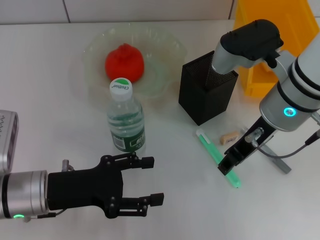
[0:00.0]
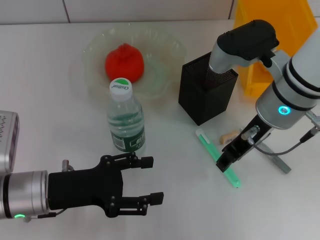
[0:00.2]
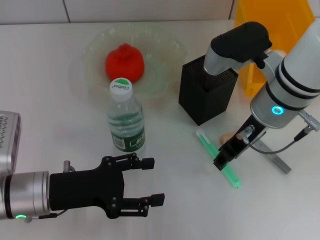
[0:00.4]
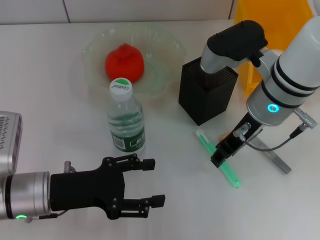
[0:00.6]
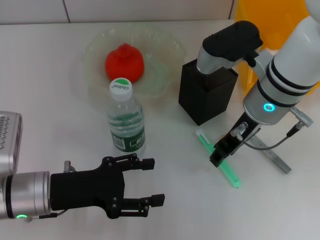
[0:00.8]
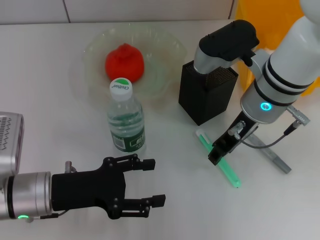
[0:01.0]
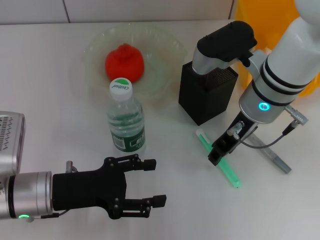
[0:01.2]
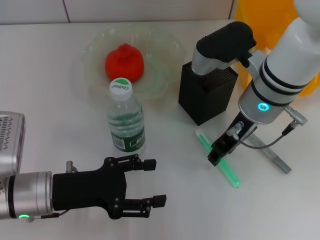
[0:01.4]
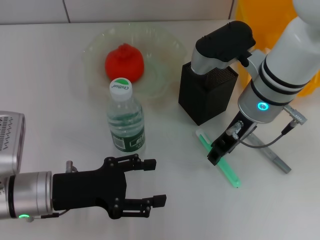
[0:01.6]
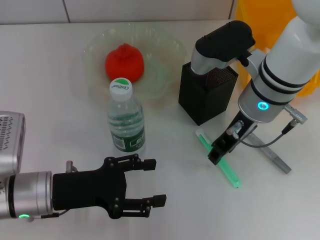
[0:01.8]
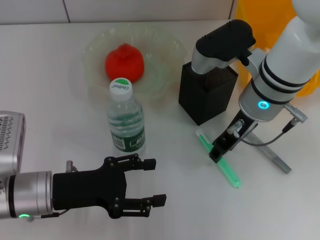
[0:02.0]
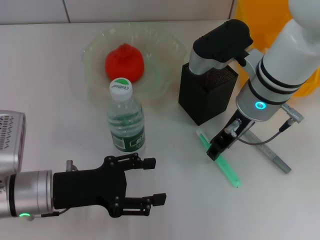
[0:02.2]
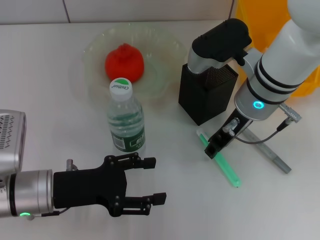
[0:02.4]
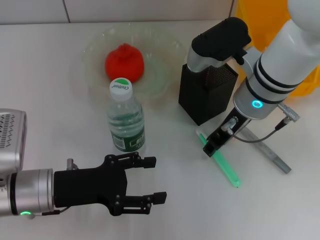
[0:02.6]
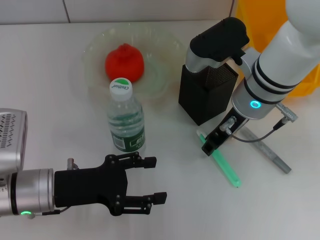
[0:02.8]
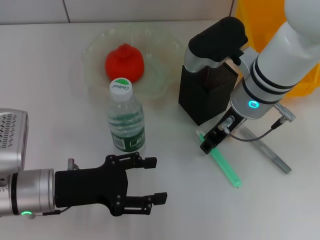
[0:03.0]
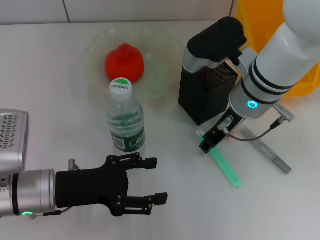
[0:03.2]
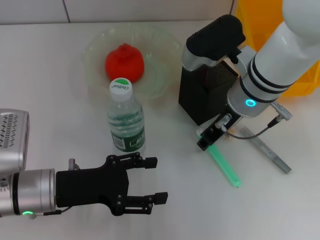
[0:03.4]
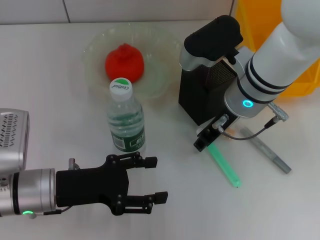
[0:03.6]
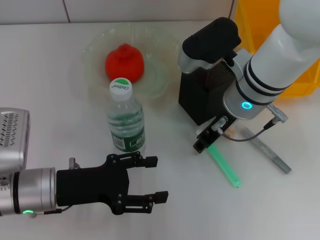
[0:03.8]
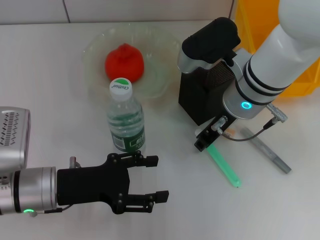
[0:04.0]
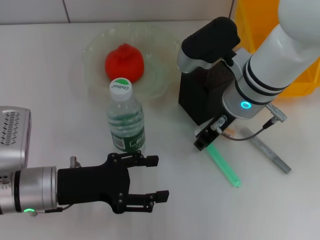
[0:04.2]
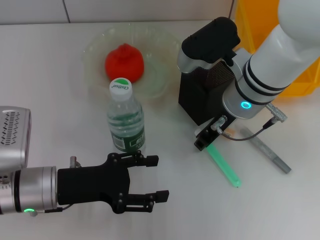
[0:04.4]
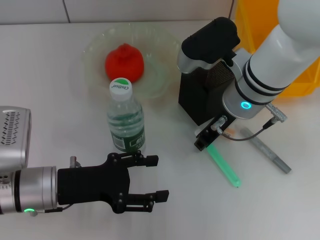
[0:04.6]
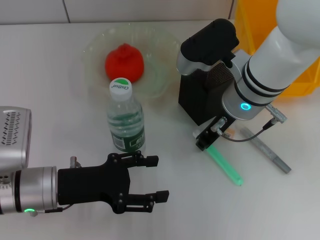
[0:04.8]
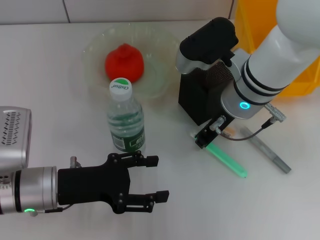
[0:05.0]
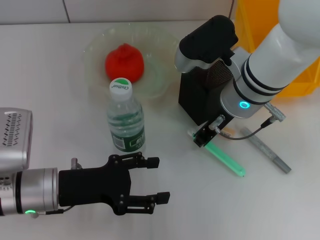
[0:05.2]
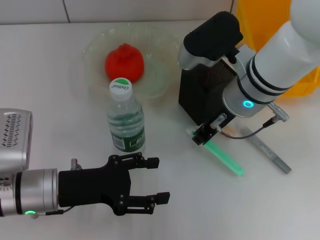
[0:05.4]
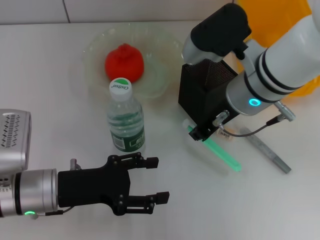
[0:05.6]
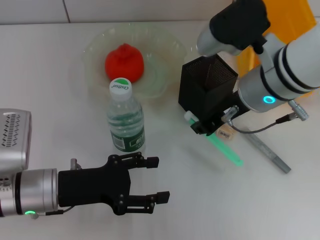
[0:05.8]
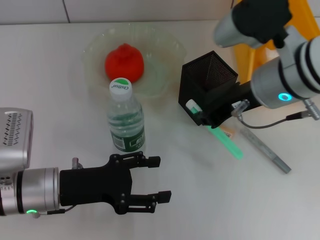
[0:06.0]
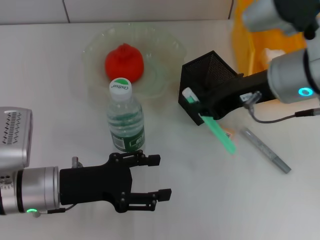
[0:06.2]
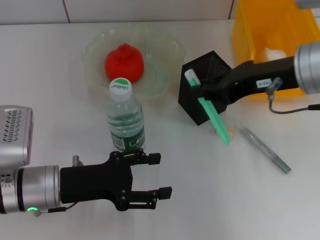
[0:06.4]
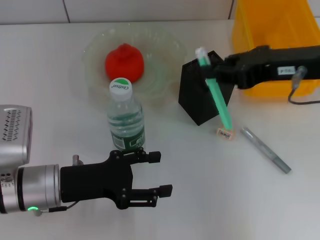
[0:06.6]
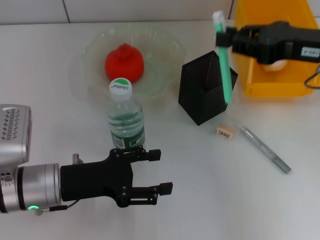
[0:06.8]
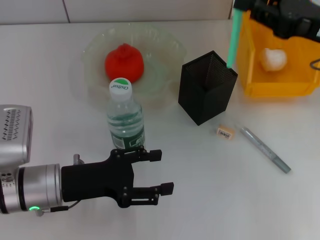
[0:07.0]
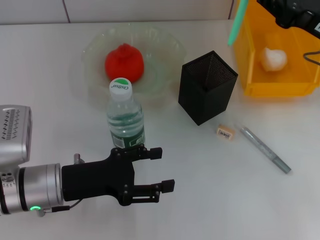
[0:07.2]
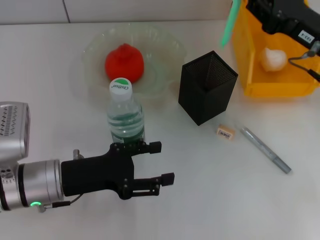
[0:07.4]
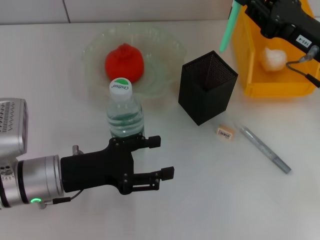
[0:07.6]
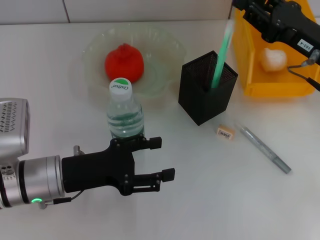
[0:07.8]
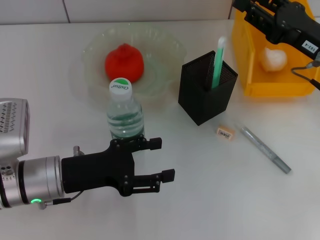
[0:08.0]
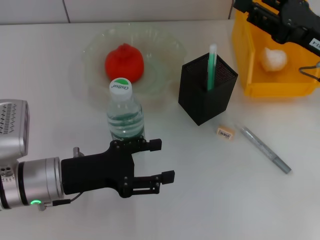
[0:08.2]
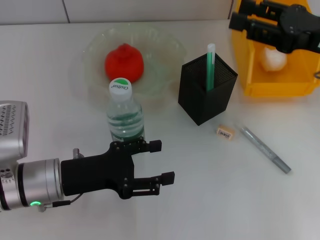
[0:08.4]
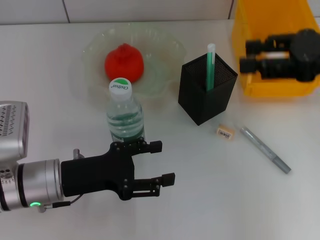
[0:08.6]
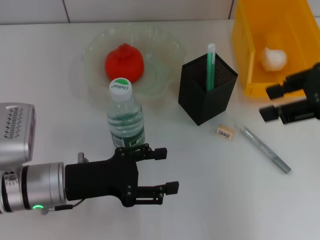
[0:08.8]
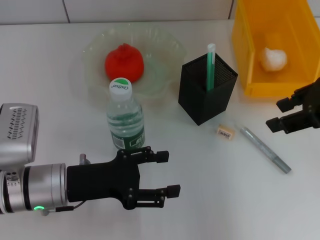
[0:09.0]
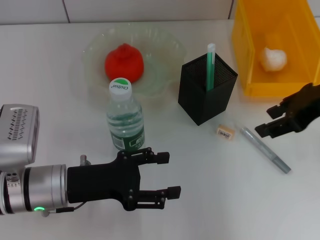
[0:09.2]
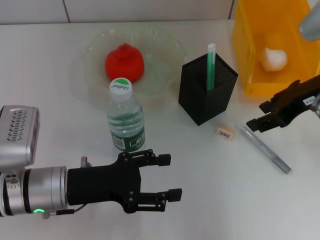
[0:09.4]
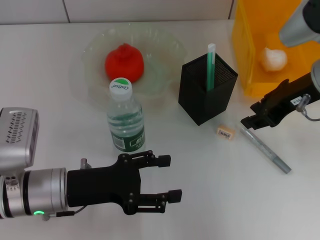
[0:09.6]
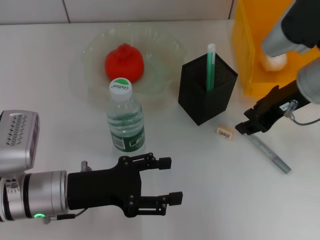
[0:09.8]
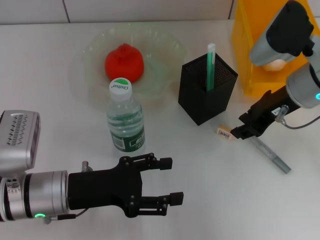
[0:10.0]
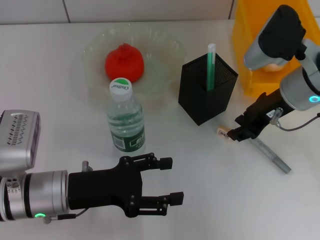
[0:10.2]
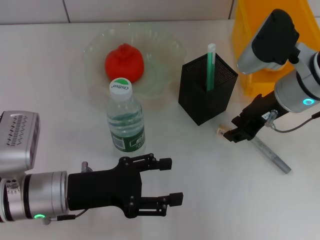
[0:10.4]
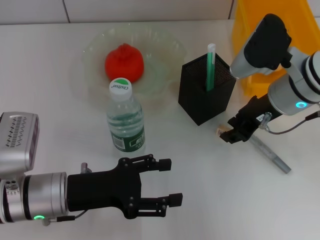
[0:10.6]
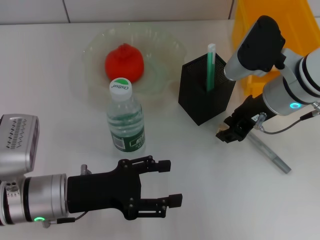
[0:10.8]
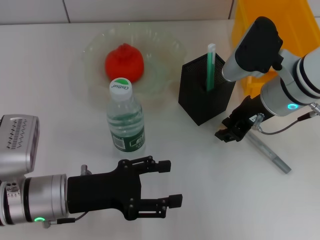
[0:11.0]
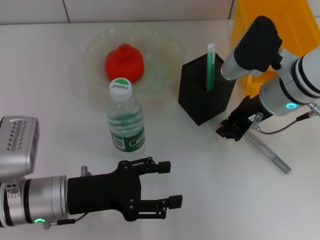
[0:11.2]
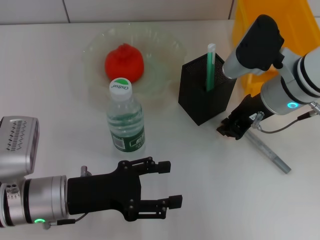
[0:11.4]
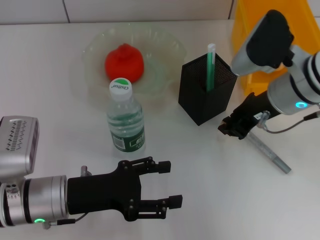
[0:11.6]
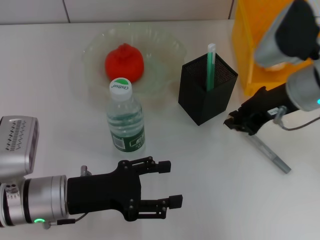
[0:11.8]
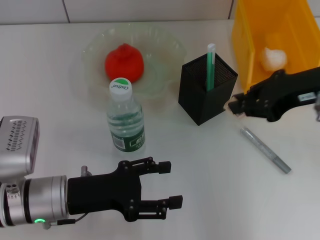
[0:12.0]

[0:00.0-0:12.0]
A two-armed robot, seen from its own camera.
Step, 0:00.0 to 0:04.8: Grab the blue utility knife with the right hand.
Step, 0:05.2 to 0:08.2: Place the blue utility knife into the pen holder with the right hand.
Step, 0:08.6 to 0:11.2: Grab the eraser with the right hand.
0:00.0 to 0:03.0: The grippers stay close to where they were, moving slightly.
0:03.0 to 0:04.4: Both grippers stay put.
0:04.4 to 0:06.0: The right gripper moves upward, approximately 5 cm.
0:06.0 to 0:07.6: The right gripper is displaced to the right and downward by roughly 15 cm.
0:07.6 to 0:09.0: The right gripper heads upward, covering approximately 10 cm, and opens its fingers.
0:09.0 to 0:10.4: The right gripper heads downward, to the left and forward, covering some 15 cm.
0:10.4 to 0:12.0: The right gripper is displaced upward by roughly 5 cm, and closes.

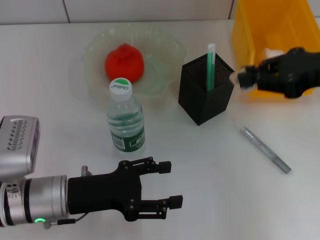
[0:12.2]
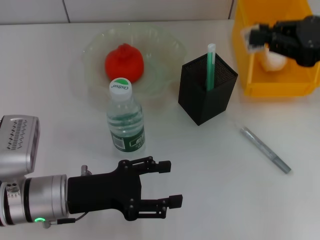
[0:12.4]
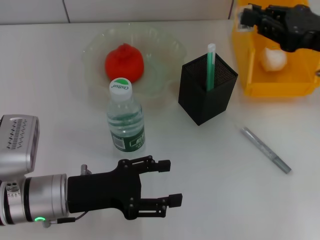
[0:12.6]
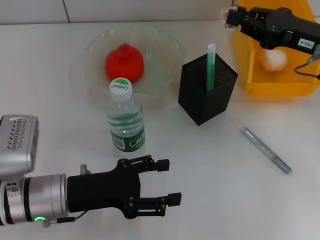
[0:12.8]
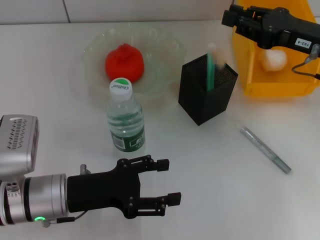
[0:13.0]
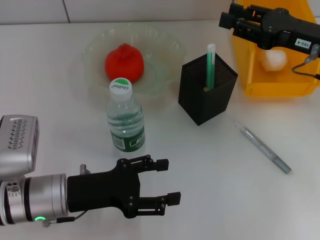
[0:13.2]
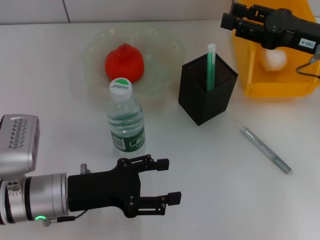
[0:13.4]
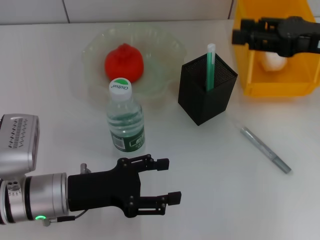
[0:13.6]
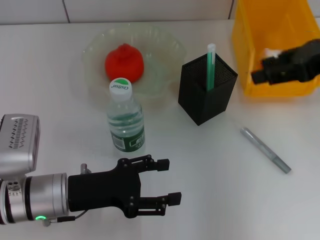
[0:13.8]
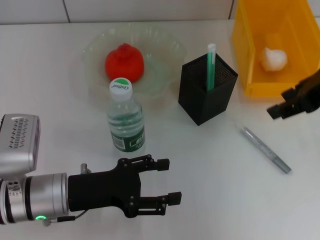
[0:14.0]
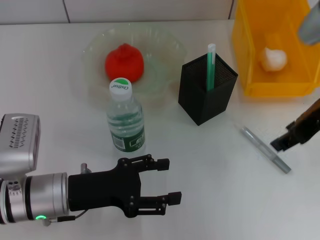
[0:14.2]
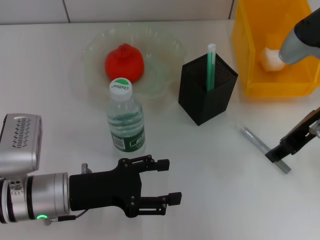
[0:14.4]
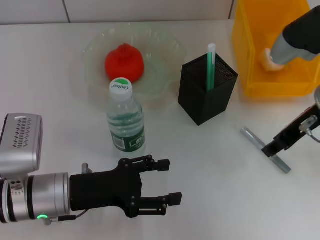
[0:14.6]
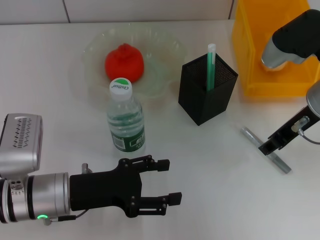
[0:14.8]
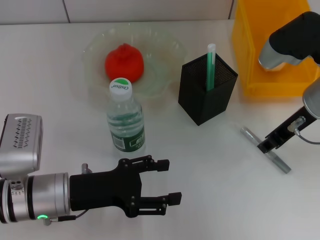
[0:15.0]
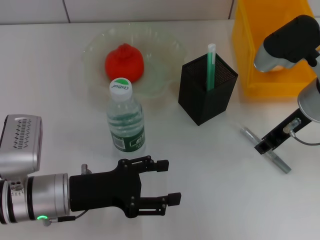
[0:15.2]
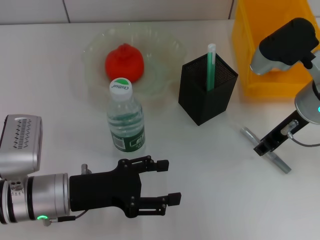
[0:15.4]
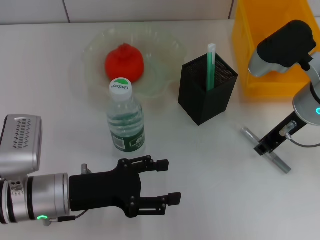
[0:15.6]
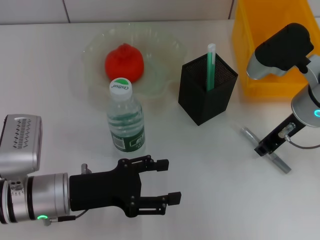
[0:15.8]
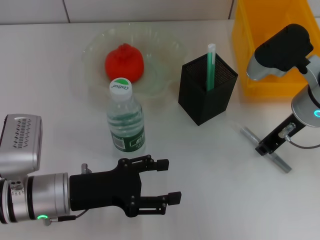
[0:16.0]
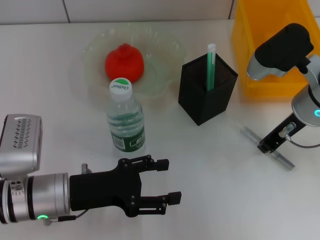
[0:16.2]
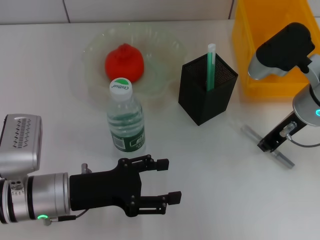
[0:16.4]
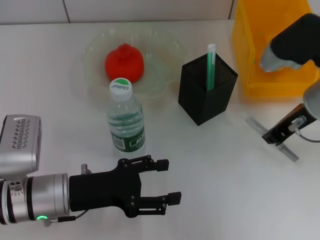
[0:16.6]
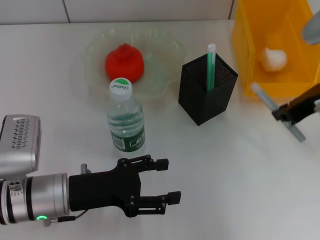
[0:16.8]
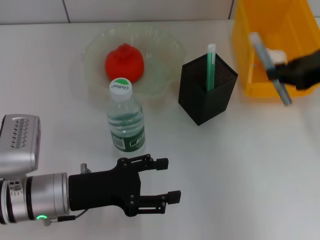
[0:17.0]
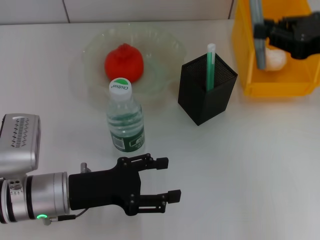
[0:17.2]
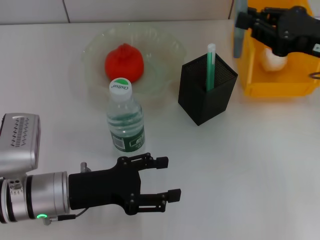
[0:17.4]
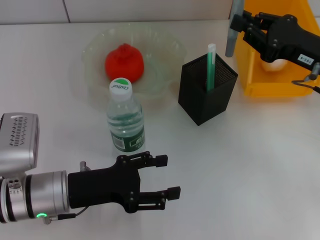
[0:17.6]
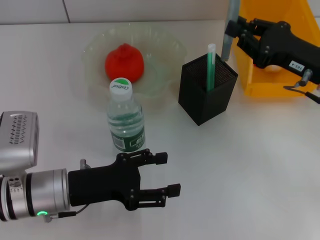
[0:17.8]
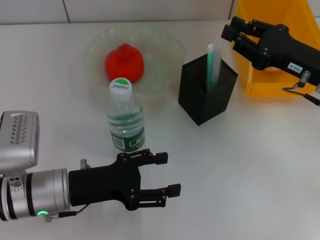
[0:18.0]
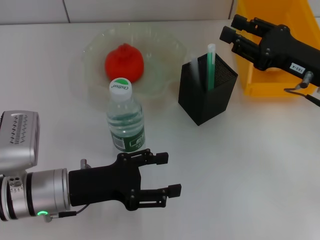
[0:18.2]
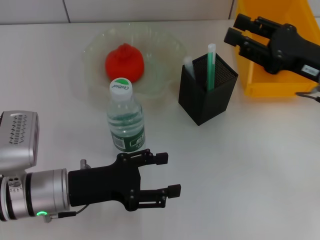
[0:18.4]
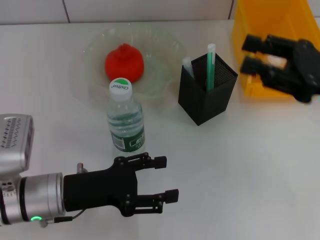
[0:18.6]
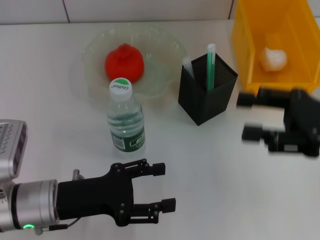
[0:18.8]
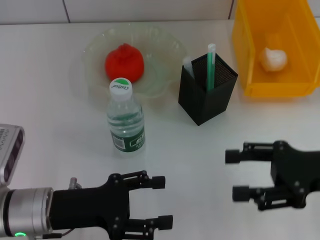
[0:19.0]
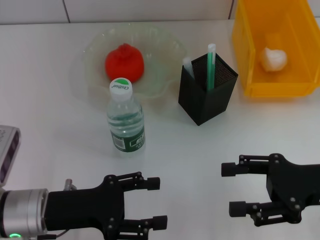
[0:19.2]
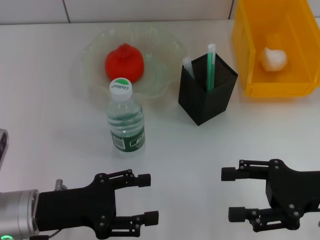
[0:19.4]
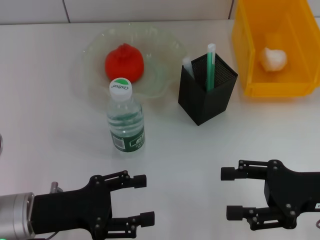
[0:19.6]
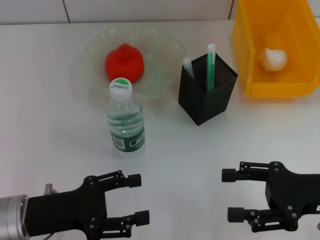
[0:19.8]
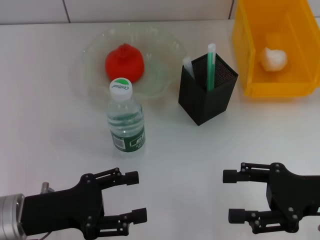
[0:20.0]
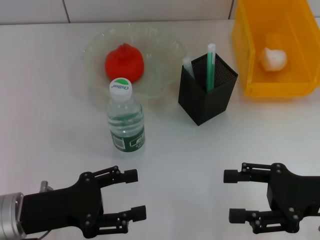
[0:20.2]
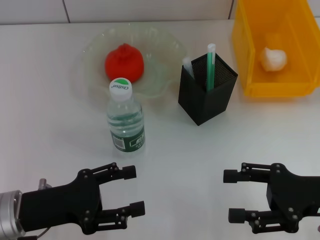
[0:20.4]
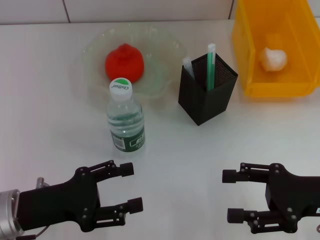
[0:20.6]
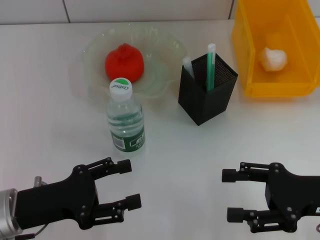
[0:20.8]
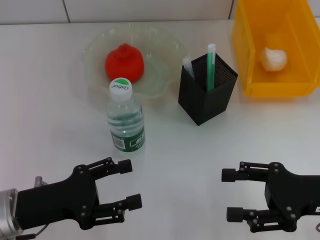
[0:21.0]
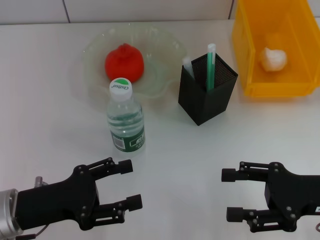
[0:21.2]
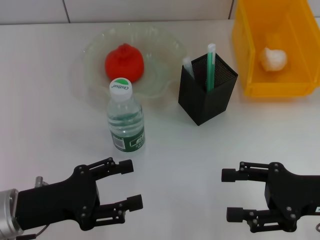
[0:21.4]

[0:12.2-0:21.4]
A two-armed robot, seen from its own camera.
Step, 0:12.2 to 0:13.4: Put the eraser into the pen holder with the right hand.
Step, 0:13.6 to 0:16.2: Grab the gray glue with the right hand.
Step, 0:16.4 to 0:18.0: Place the gray glue into the pen holder with the right hand.
0:12.2 to 0:13.8: The right gripper travels downward and back again, about 5 cm each way, and opens.
0:13.8 to 0:15.2: The right gripper shifts approximately 10 cm downward and to the left.
0:15.2 to 0:16.8: The right gripper changes place by about 5 cm, and closes.
0:16.8 to 0:18.4: The right gripper is displaced downward by about 5 cm, and opens.
0:18.4 to 0:19.8: The right gripper moves backward and downward, about 10 cm, and opens up. Meanwhile the left gripper changes place by some 5 cm.
0:19.8 to 0:21.4: Neither gripper changes place.

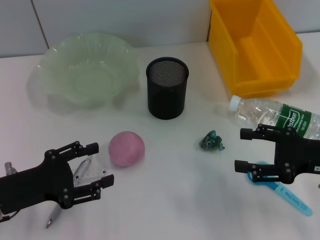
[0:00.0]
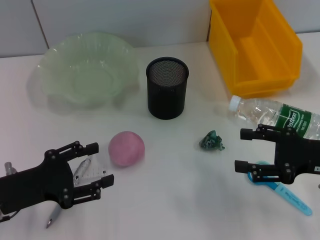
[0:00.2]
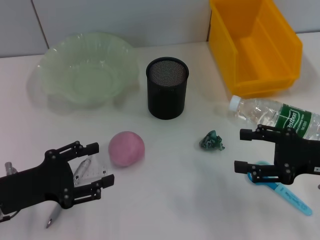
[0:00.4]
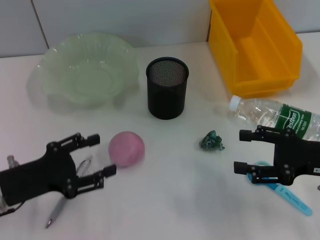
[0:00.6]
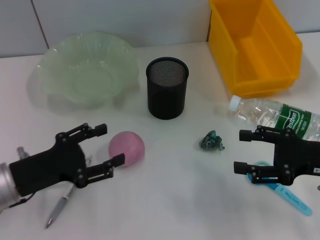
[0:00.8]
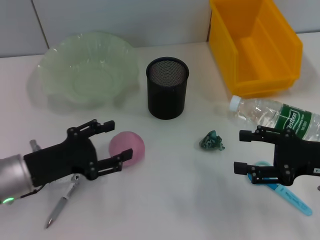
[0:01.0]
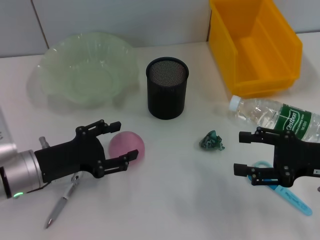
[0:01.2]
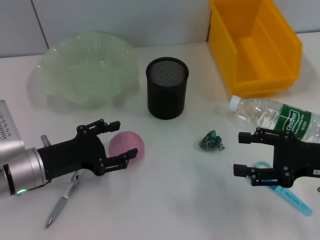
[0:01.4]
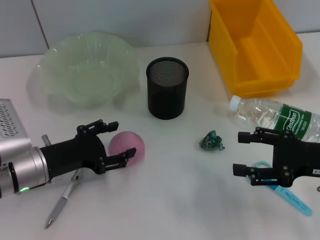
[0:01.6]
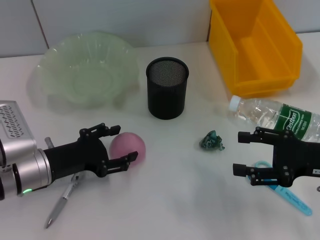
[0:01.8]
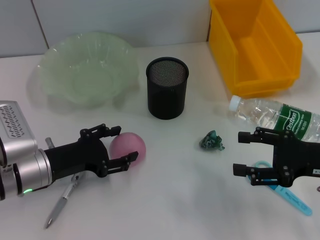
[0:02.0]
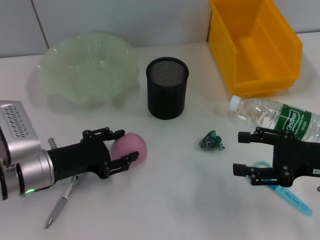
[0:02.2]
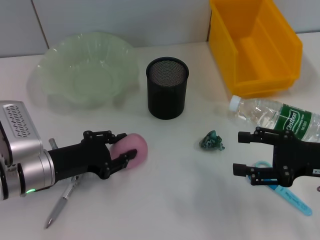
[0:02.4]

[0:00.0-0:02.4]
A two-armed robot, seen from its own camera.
0:00.0 to 0:01.2: The left gripper changes place by some 5 cm.
0:01.2 to 0:02.4: The grippers move only a little.
